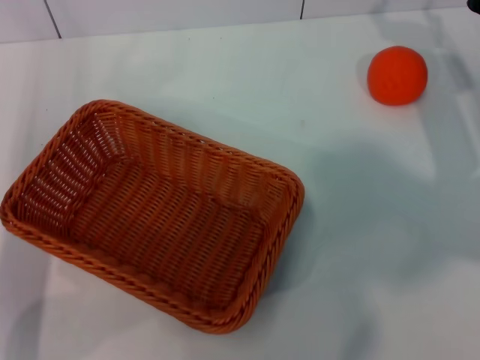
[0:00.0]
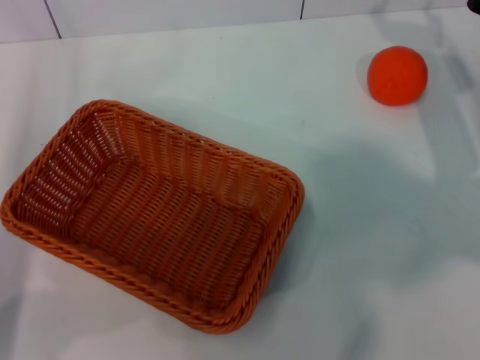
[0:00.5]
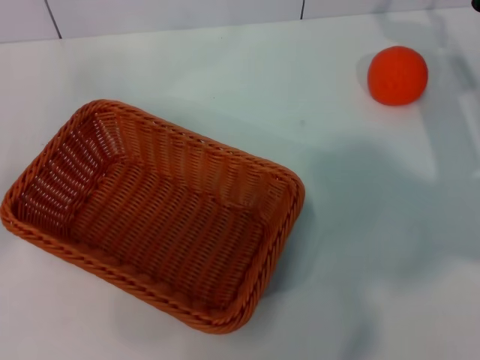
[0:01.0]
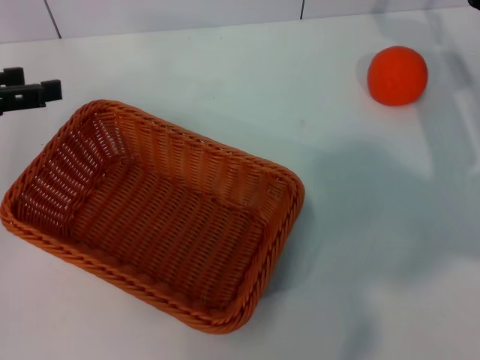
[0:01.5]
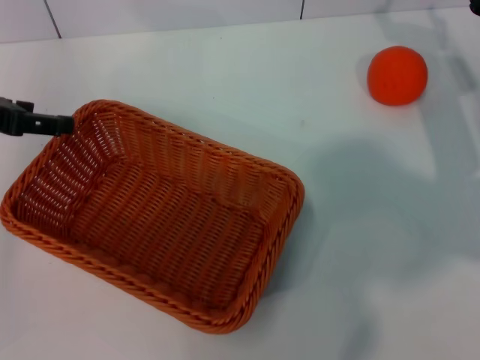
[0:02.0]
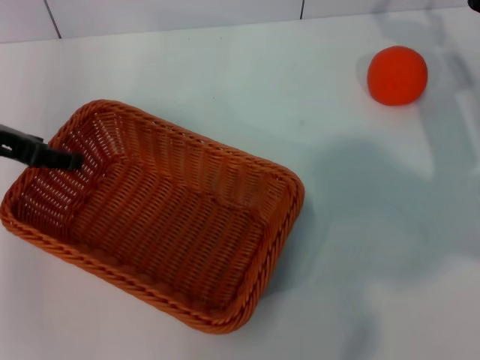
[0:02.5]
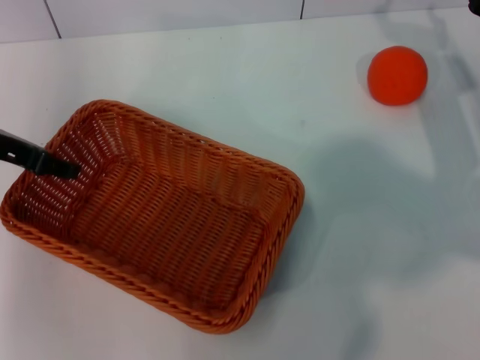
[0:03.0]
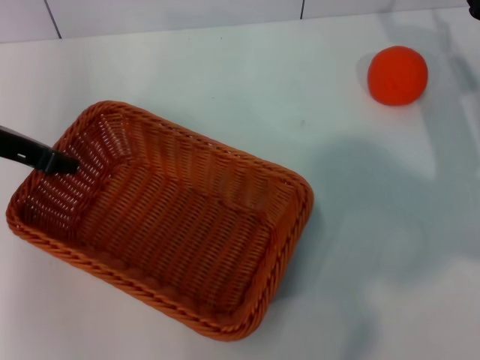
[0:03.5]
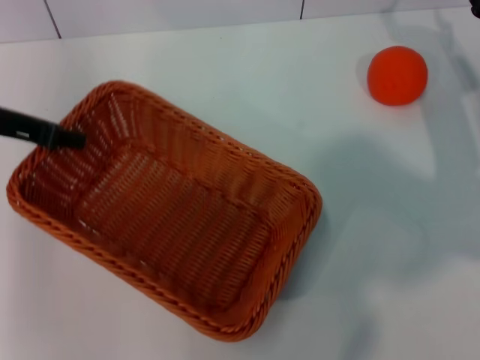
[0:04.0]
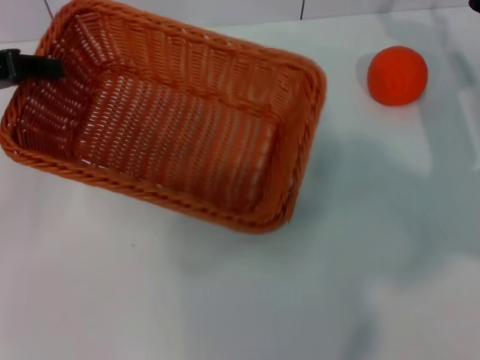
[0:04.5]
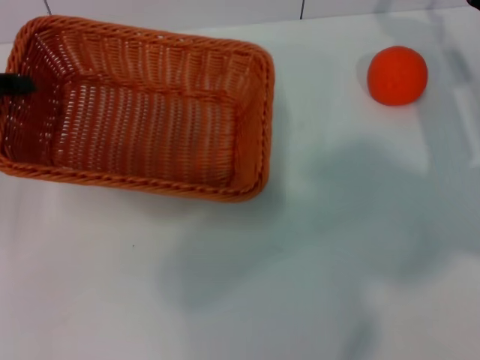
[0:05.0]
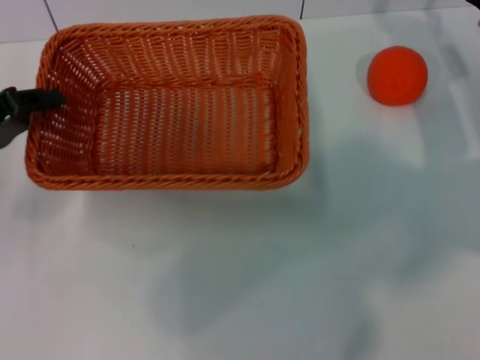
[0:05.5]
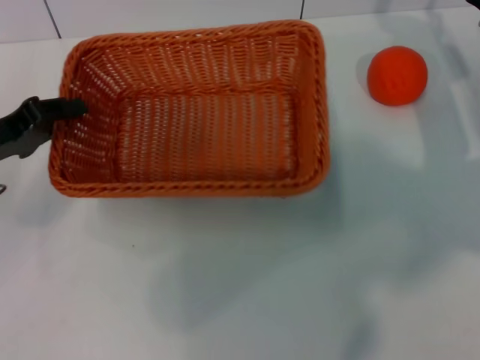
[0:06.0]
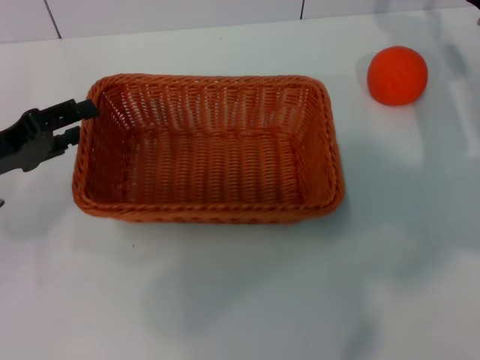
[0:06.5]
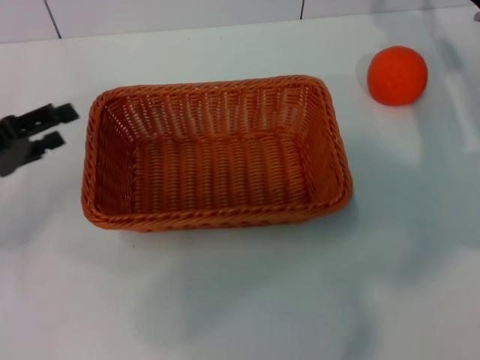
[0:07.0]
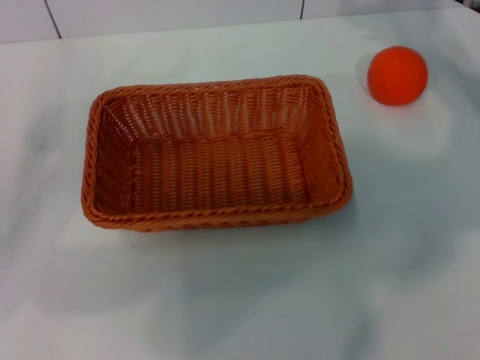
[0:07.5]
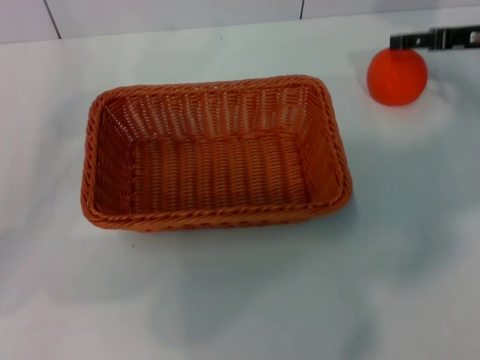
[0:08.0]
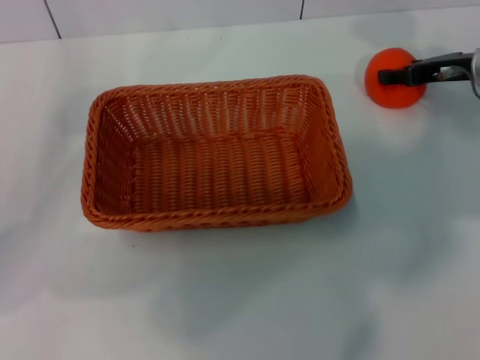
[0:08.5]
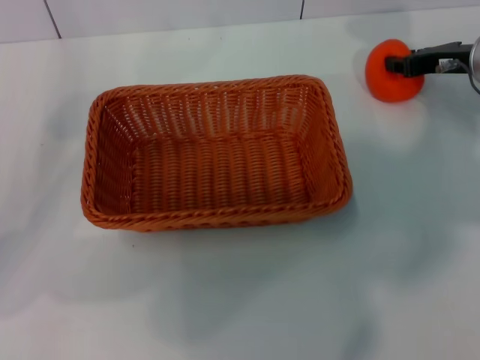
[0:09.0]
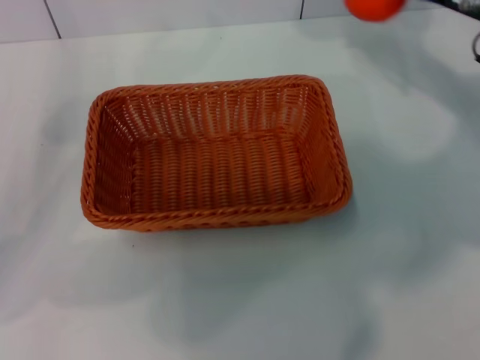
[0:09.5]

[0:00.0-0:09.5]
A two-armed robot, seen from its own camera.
Task of the whole recording: the left gripper pick up the yellow basket and place it horizontally in the middle of the table, the right gripper pick up the orange and place it into the yellow basket.
Step, 0:00.0 to 0:03.0: Pick up the light basket with the left gripper.
Step, 0:03.5 to 0:06.5: Place the light basket in the center of view with the left gripper.
Step, 0:07.0 to 0:09.0: Pick up the orange with the right gripper.
0:00.0 to 0:02.0: The left gripper heads upward and forward, covering roughly 15 cm, and opens its fingers.
0:02.0 to 0:04.0: The left gripper closes.
0:04.0 to 0:05.5: The left gripper shifts roughly 5 cm downward.
0:05.5 to 0:07.5: The right gripper ends up approximately 5 cm from where it was, while the left gripper opens up.
0:07.5 to 0:09.5: The right gripper closes up.

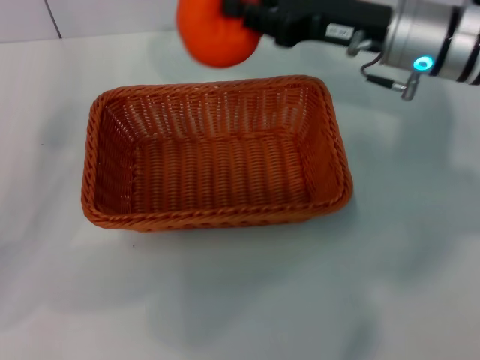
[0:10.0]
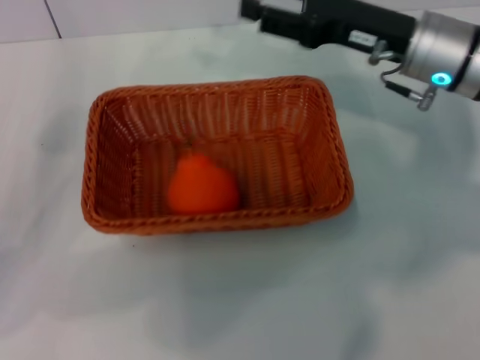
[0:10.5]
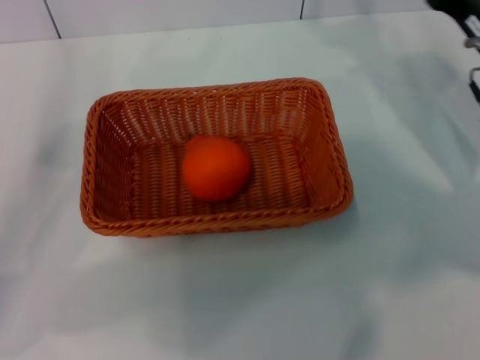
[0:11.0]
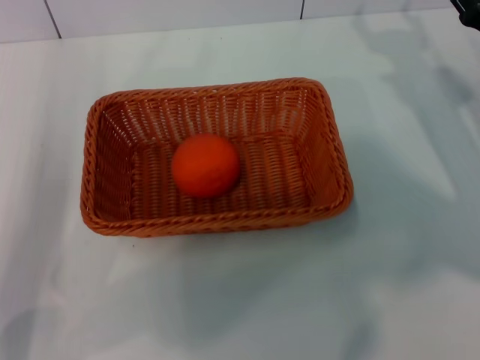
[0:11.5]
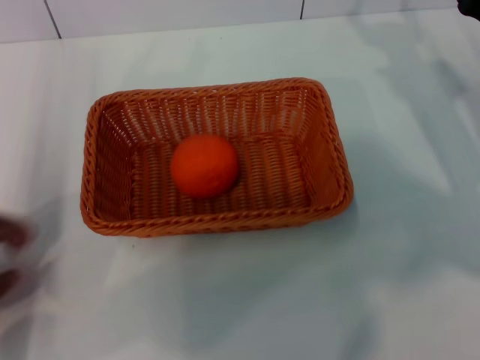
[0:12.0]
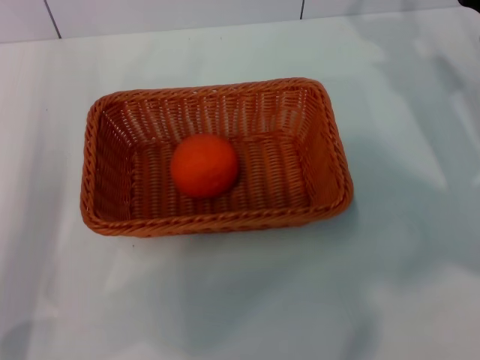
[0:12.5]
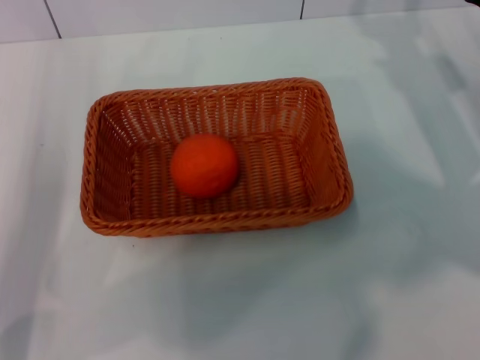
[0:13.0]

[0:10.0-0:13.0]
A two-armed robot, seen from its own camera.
Task of the whole recording: the left gripper pick up the yellow basket and place it horizontally in the middle of the table, the right gripper pick up the orange and place it into the yellow basket.
0:10.0 to 0:11.5: The left gripper moves about 5 cm; the right gripper travels to the right and downward by roughly 15 cm, and opens its fingers.
